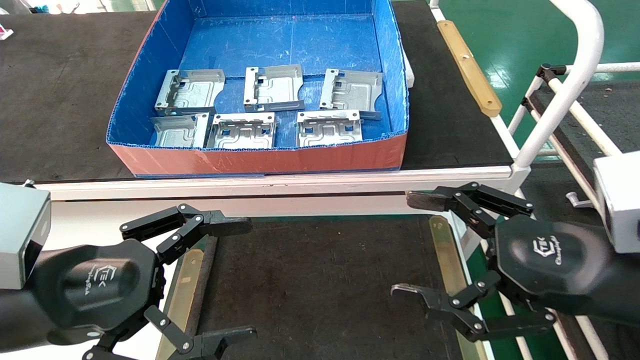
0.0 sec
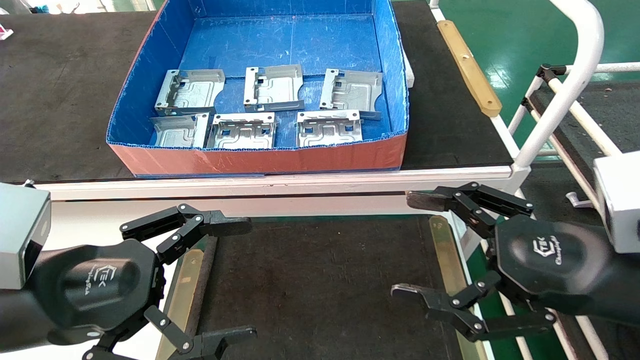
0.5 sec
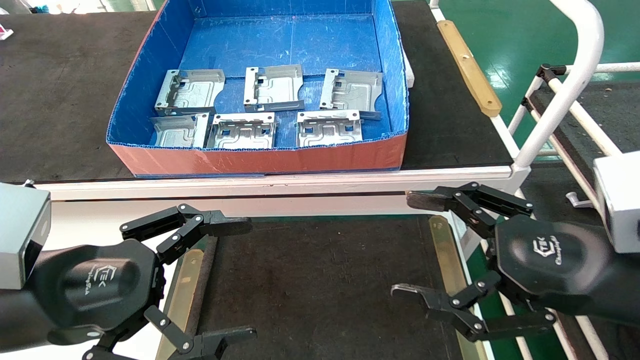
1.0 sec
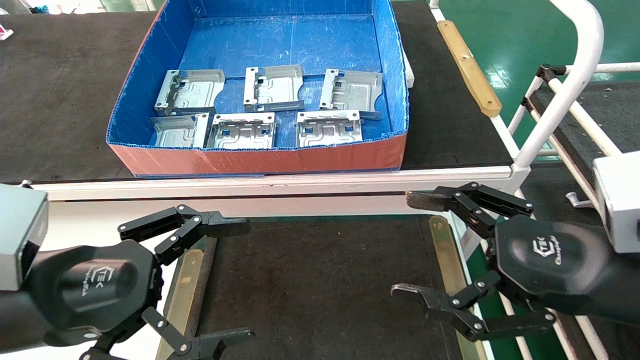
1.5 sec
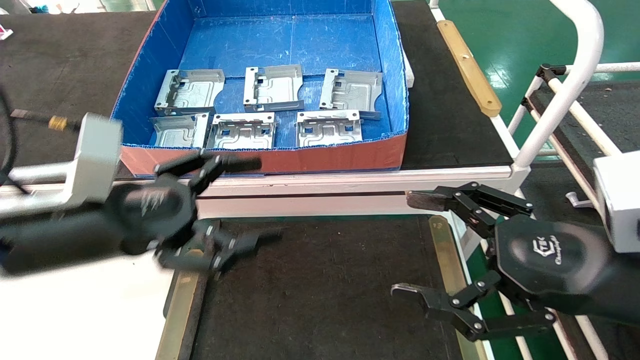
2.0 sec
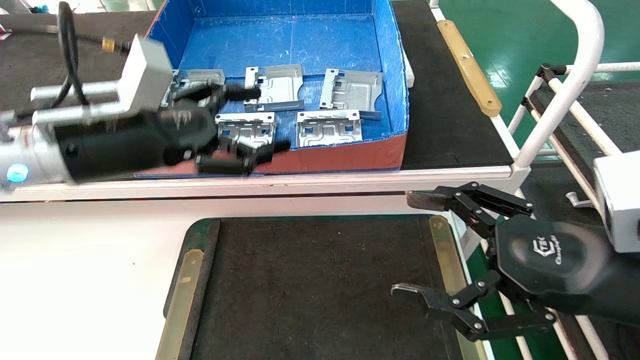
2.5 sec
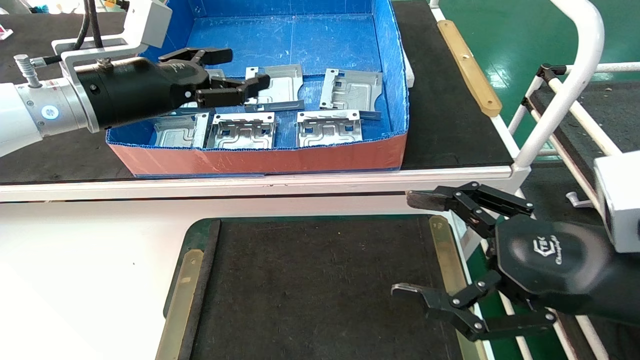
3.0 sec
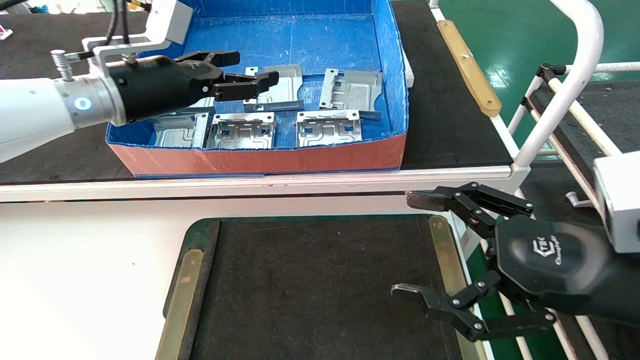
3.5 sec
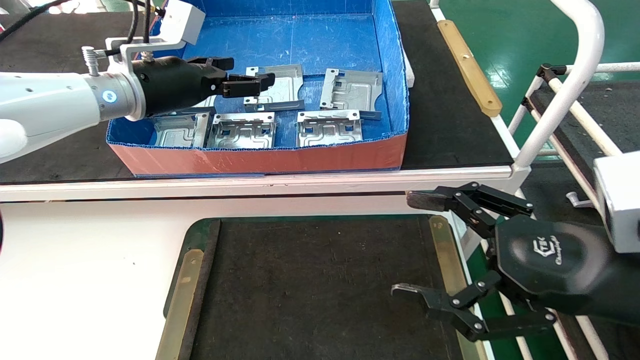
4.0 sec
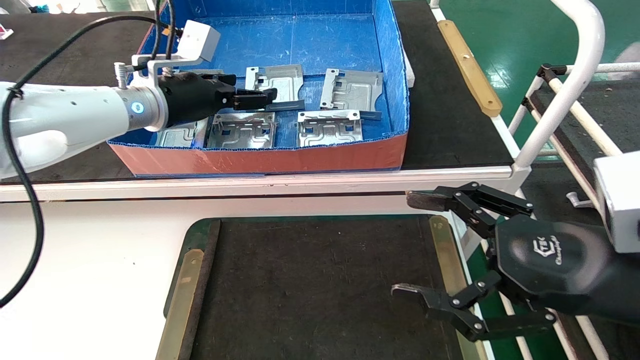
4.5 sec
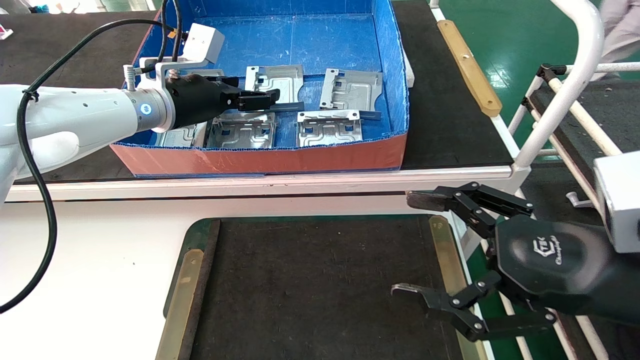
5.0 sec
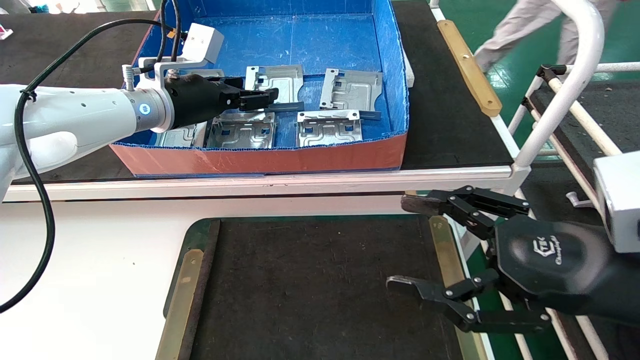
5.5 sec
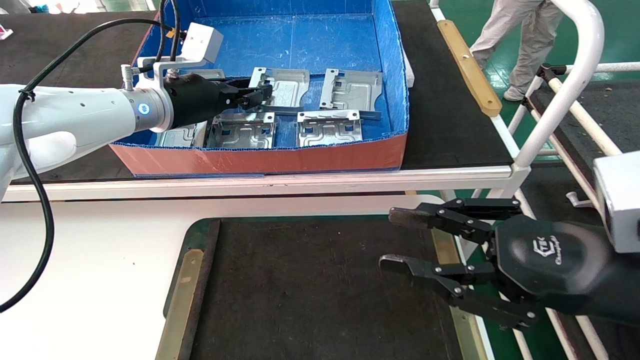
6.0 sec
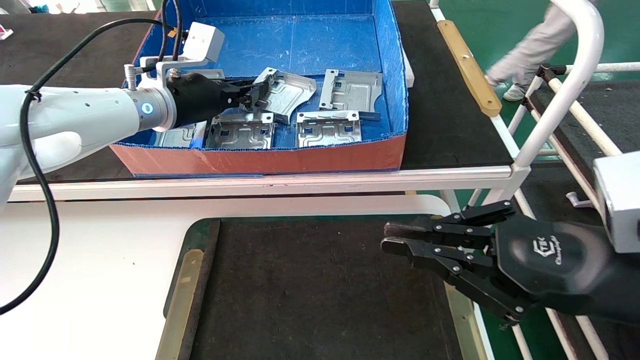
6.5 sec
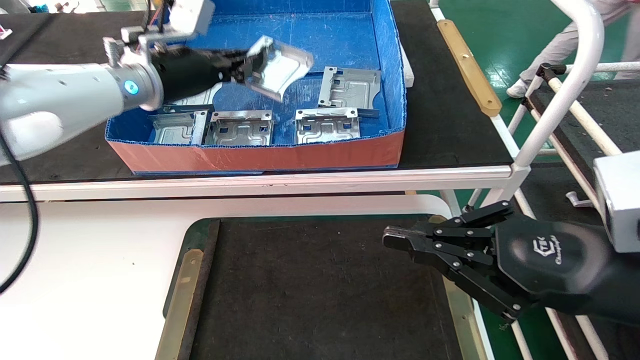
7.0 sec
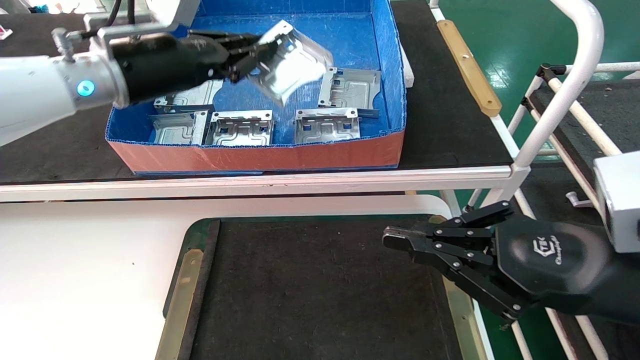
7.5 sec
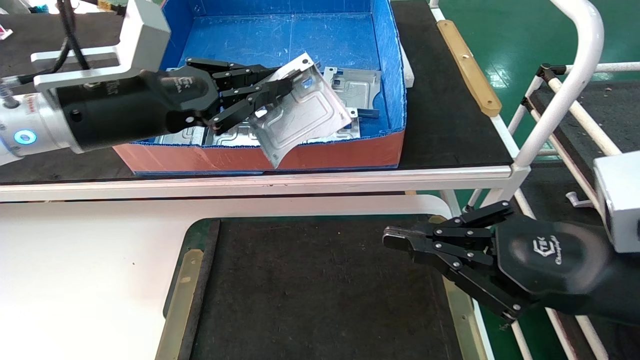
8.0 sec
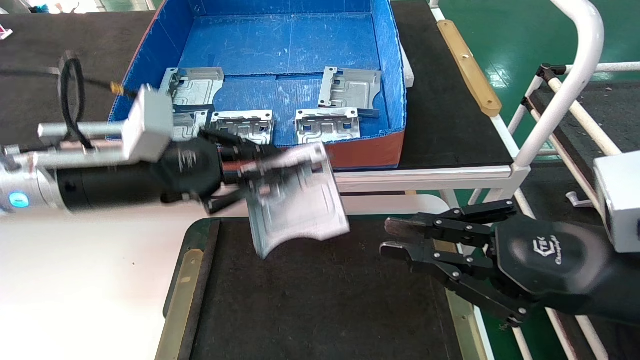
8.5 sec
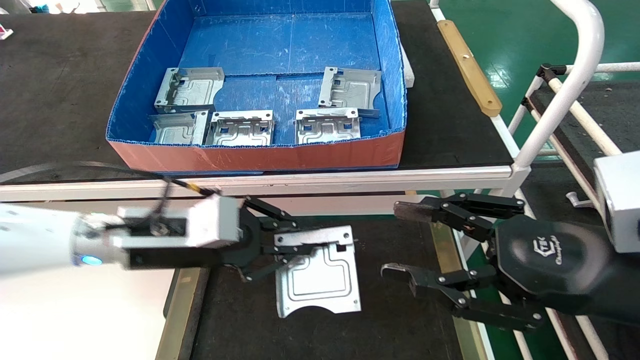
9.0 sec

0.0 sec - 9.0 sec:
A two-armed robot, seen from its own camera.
Task of the whole recording: take the accessories out of the box and place them on the table.
Step, 2.0 sec - 6.0 sec: Pick up the hard drive bracket from the feeding area.
0.0 sec - 2.0 sec: The left gripper goes roughly 5 cm forward.
2.0 sec - 4.5 sec: The left gripper moves forward and upward, some 20 cm.
4.5 sec - 7.0 sec: The left gripper closes its fingers; the right gripper closes.
7.0 sec - 9.0 sec: The right gripper opens up, while the left gripper is displaced downward and backward by roughly 20 cm.

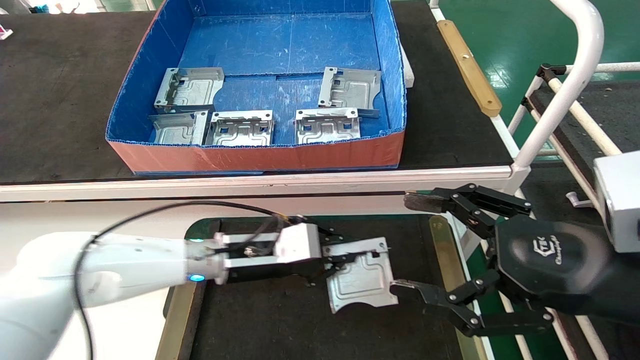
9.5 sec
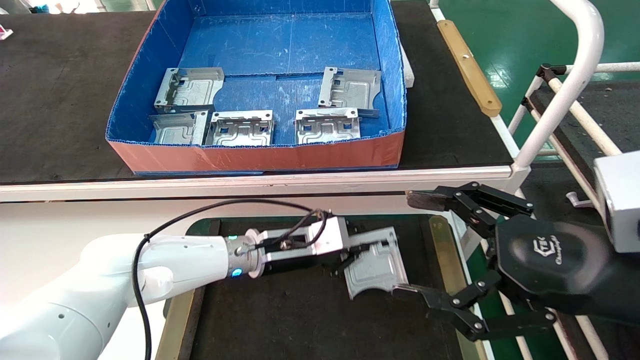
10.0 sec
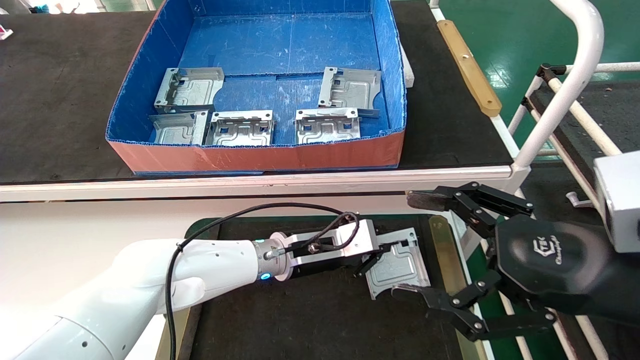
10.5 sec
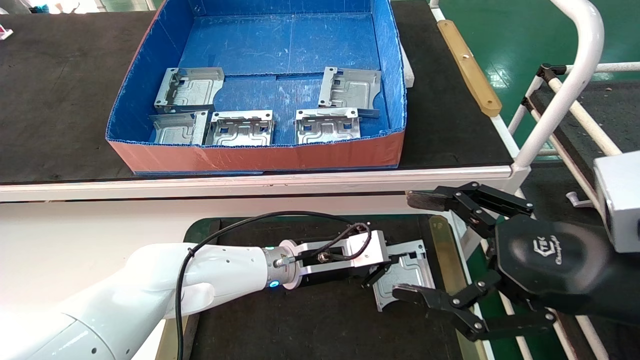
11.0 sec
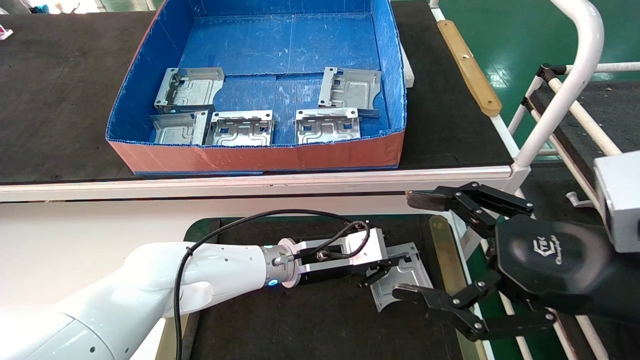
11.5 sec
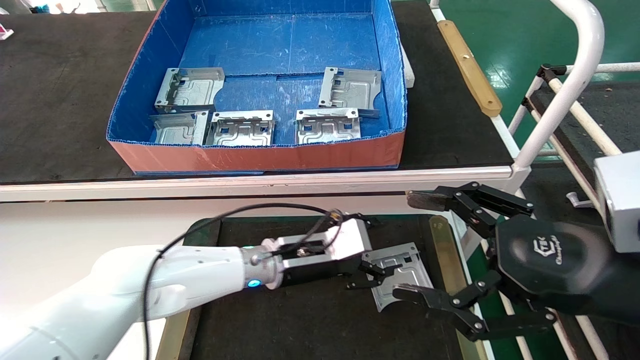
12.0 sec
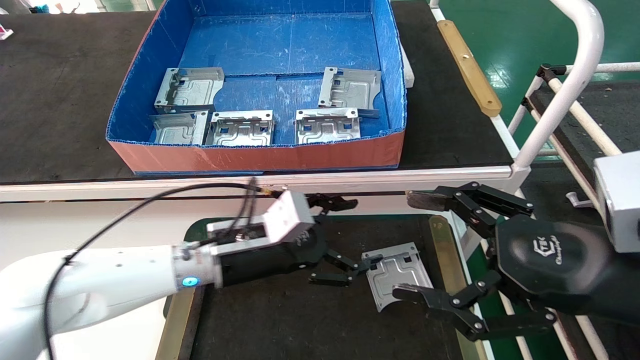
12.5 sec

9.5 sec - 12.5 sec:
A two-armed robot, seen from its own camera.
Task of the whole recording: take the accessories out of the box and place them on the table.
Step, 9.5 sec - 11.5 sec: Place the hard drive bracket into the box.
9.5 sec - 11.0 sec: The left gripper goes some 10 cm to the right.
11.0 sec - 12.5 sec: The left gripper shifts roughly 10 cm to the left and backward, and opens.
